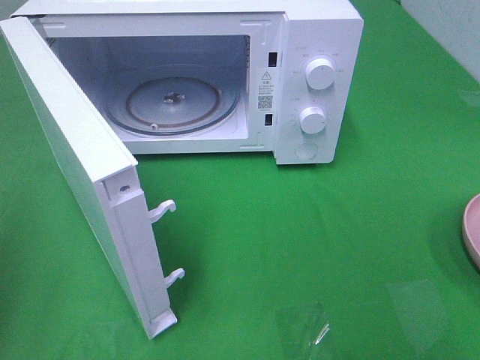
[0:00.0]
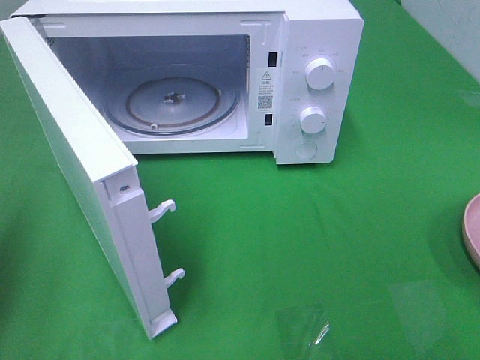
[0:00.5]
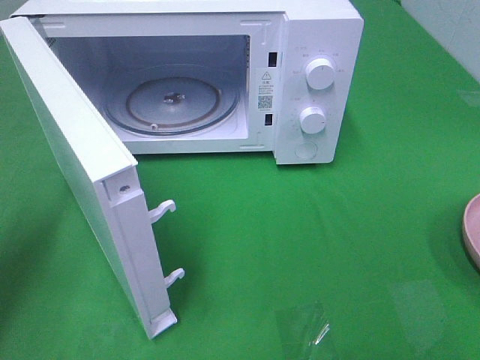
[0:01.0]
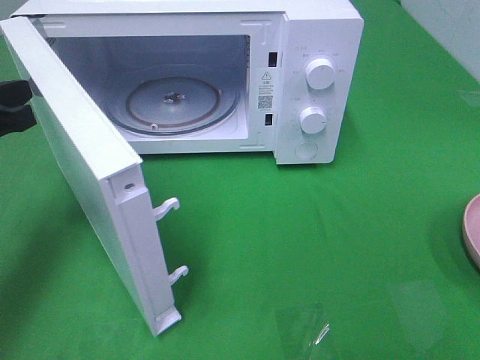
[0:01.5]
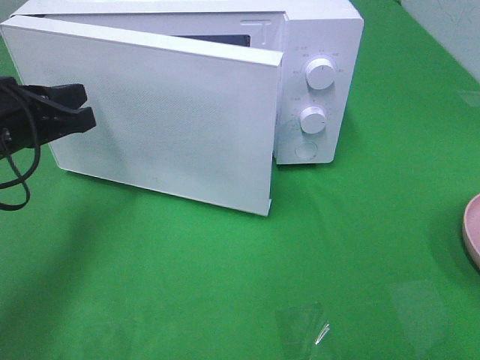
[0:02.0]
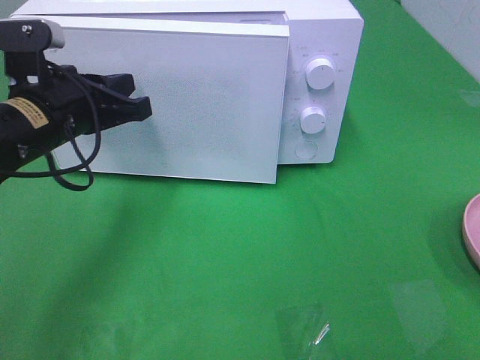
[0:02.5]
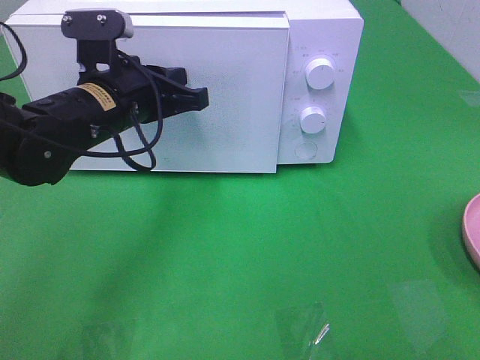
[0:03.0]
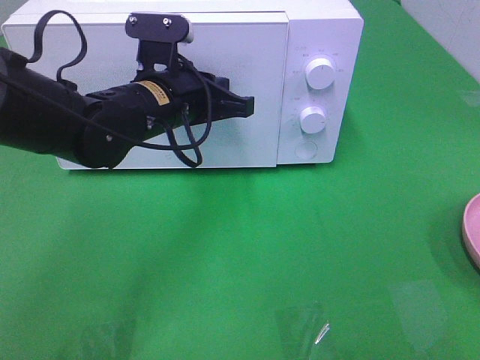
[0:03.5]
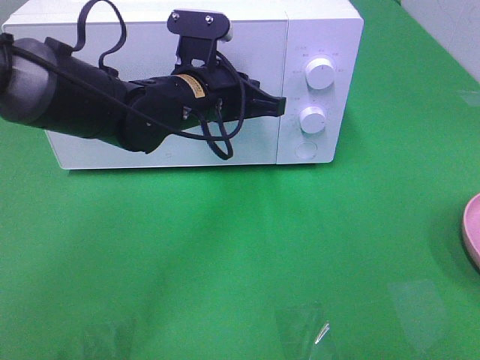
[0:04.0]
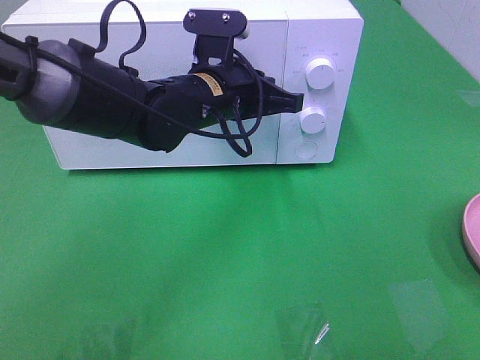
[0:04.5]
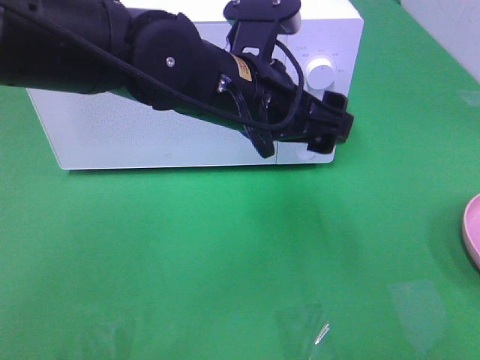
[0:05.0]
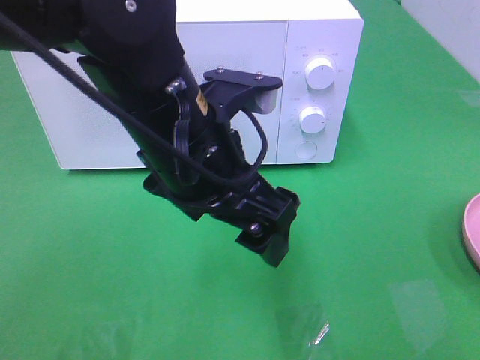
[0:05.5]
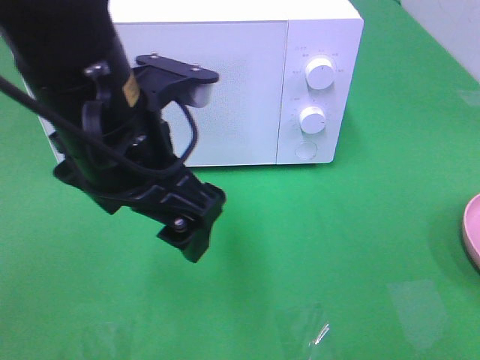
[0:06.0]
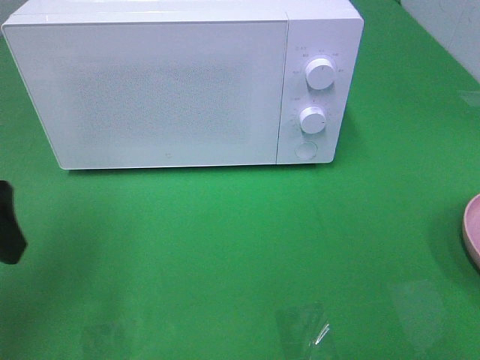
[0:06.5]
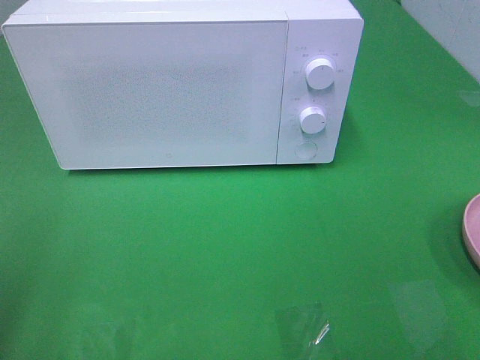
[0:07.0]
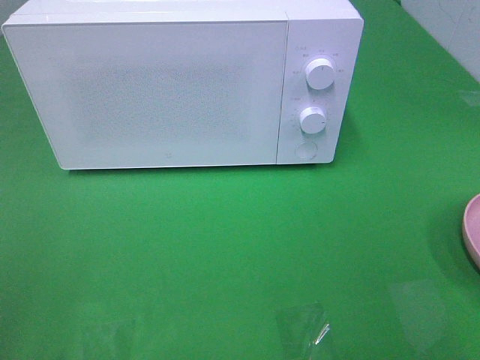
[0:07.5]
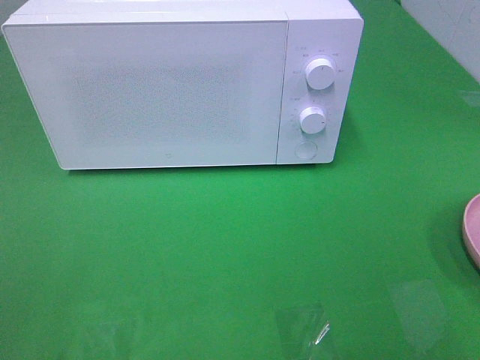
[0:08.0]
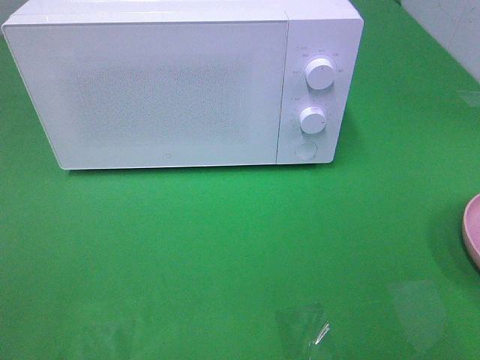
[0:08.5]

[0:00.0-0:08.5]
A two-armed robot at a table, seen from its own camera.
Task of the whole recording: Heat the burger.
Step, 0:00.0 to 0:04.5: Left hand: close the microwave door.
0:00.0 to 0:02.0: The left gripper goes some 20 cm forward, to the right and downward.
0:02.0 to 0:04.0: The left gripper shifts some 20 cm to the right.
0:04.0 to 0:06.5: The left gripper goes some 25 cm to the left and backward, and opens its fingers.
0:06.5 to 0:08.5: The left gripper heads backward, covering some 20 cm.

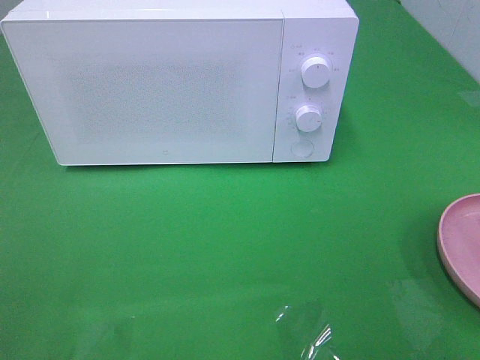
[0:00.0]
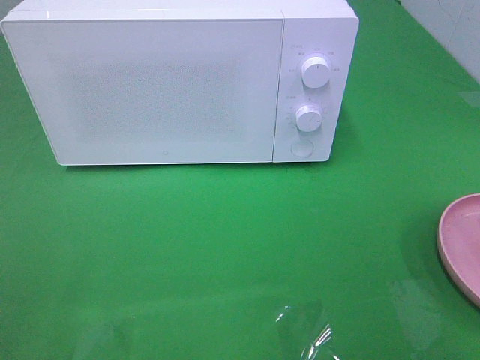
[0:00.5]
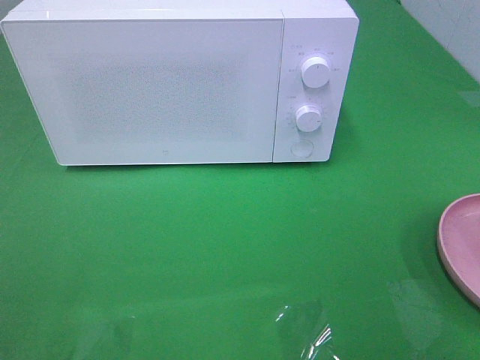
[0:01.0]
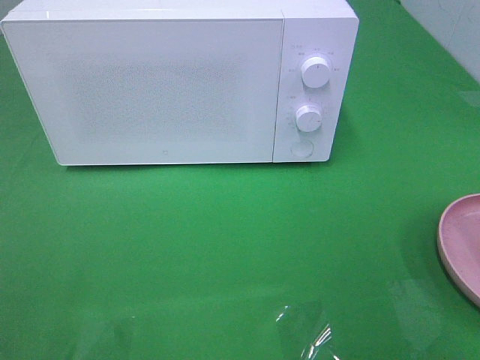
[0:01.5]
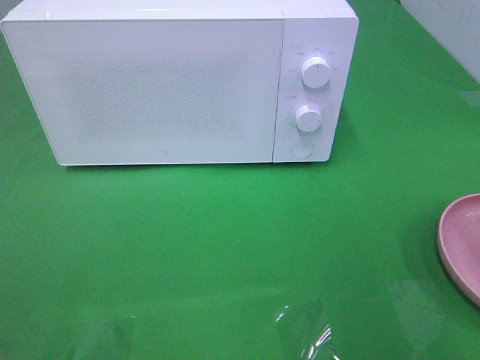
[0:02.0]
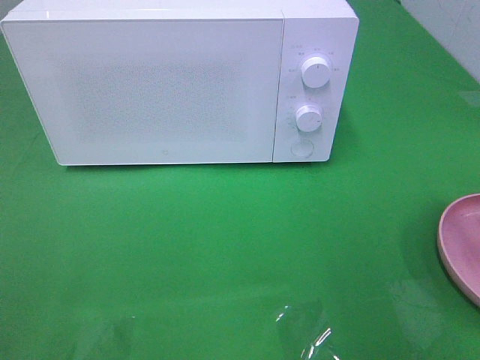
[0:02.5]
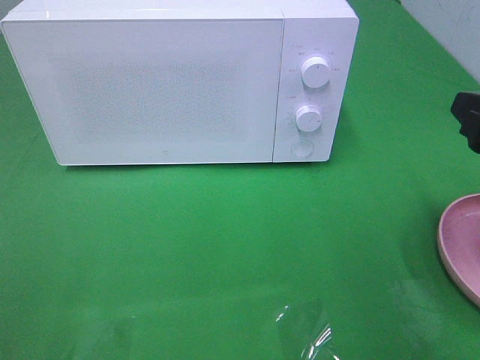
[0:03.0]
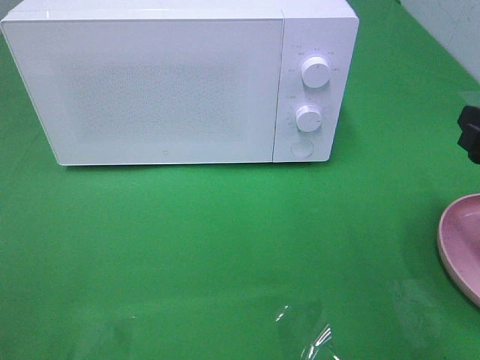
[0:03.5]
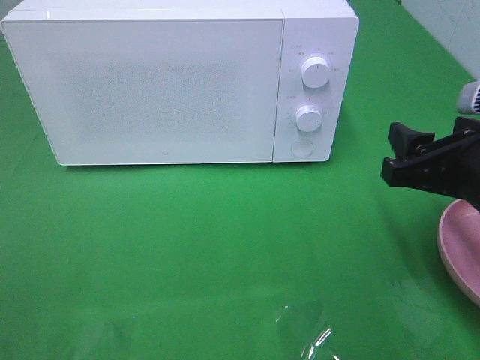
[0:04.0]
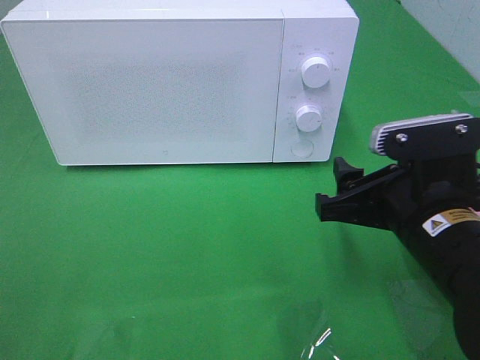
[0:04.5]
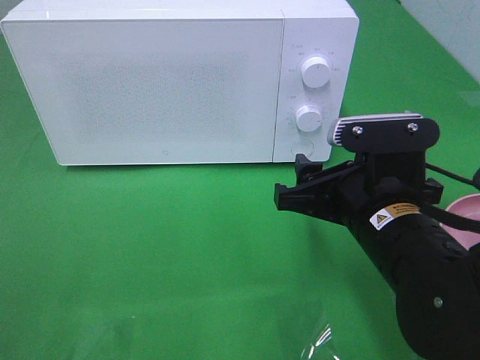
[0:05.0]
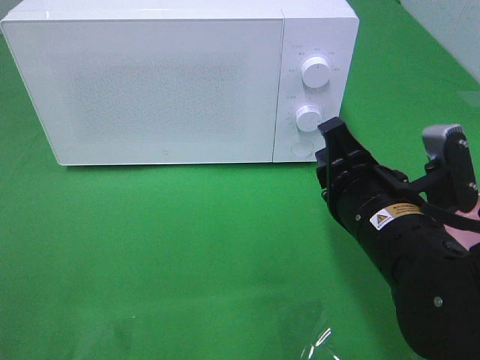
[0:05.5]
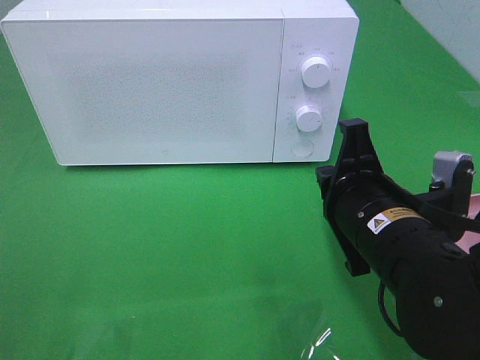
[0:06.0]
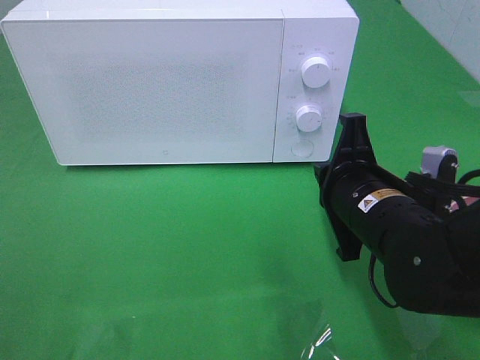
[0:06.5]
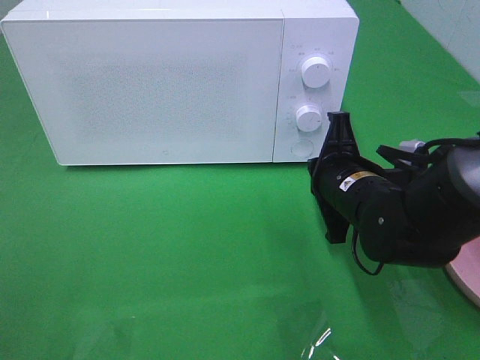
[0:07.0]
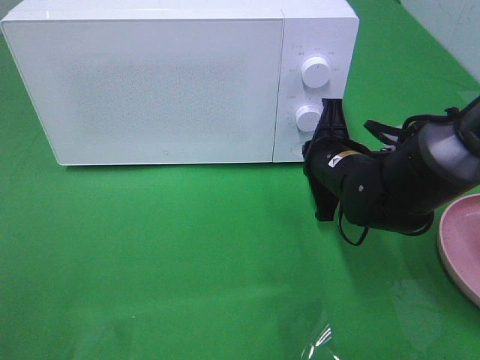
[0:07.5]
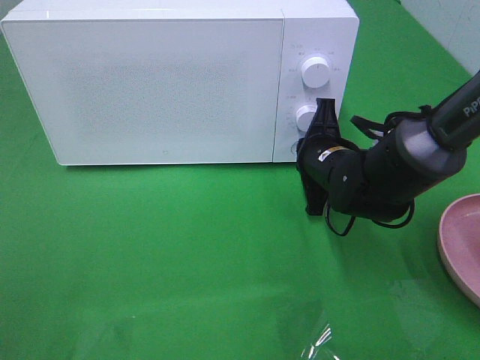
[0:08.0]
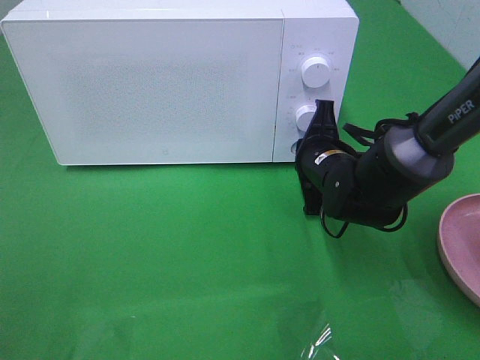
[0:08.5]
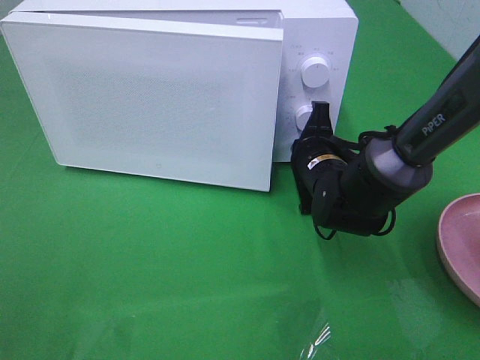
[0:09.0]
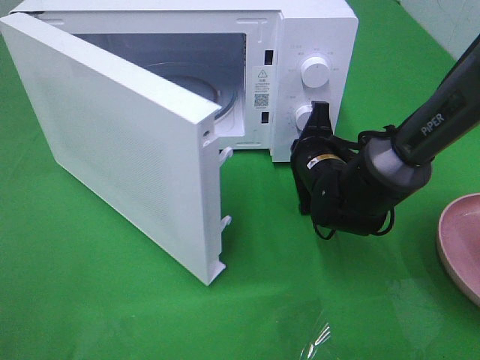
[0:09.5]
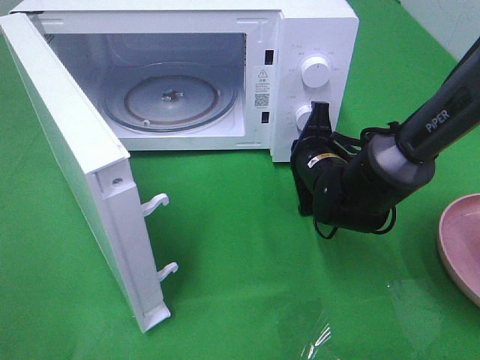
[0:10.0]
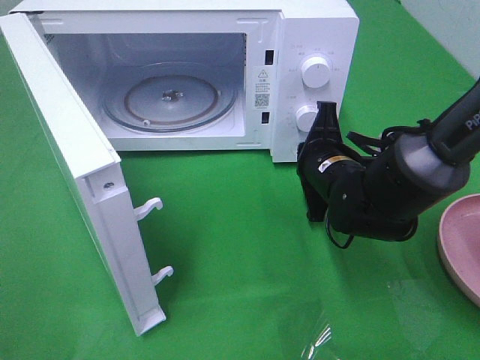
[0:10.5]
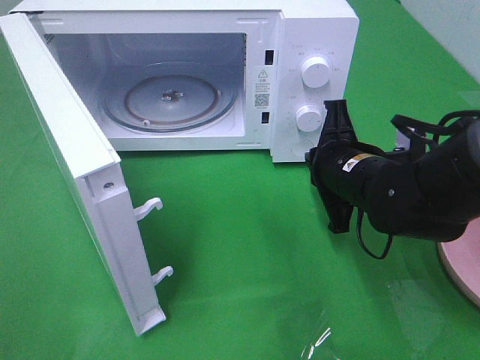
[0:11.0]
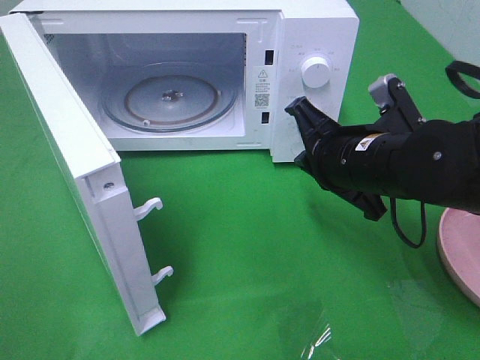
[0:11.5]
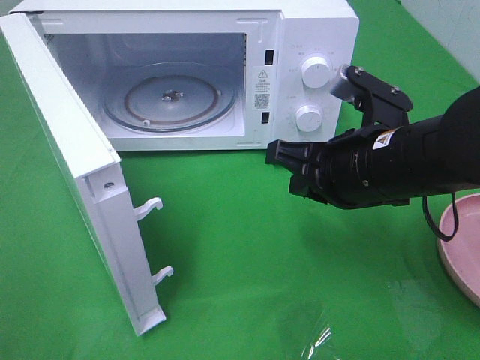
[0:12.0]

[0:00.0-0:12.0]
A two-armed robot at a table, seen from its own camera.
Task of the whole recording: Heat the burger.
Step, 0:00.0 to 0:11.0: Right hand: press the switch.
0:02.0 to 0:04.0: The right gripper is displaced downward, forward and to the left by roughly 15 cm.
0:04.0 to 0:06.0: The right gripper shifts some 10 cm to the left, and closes up.
0:06.0 to 0:08.0: The right gripper moves forward and downward, some 15 cm.
0:10.0 to 0:12.0: The right gripper goes some 15 cm backward and upward.

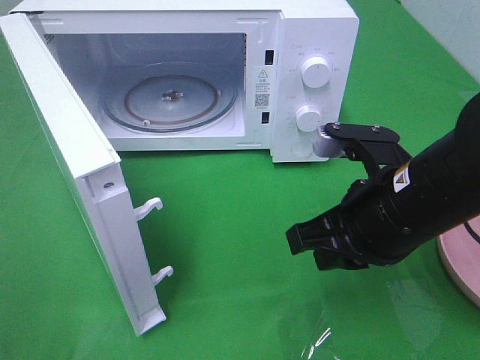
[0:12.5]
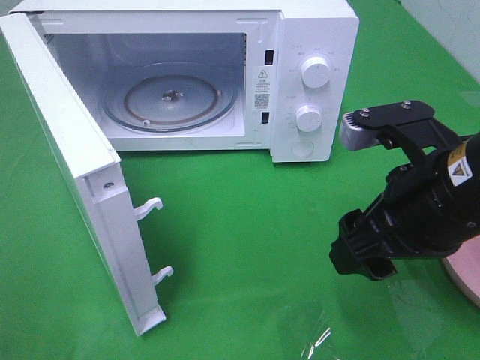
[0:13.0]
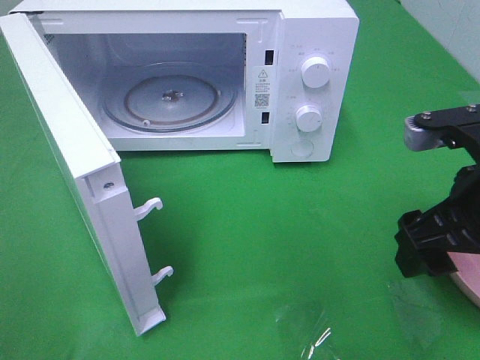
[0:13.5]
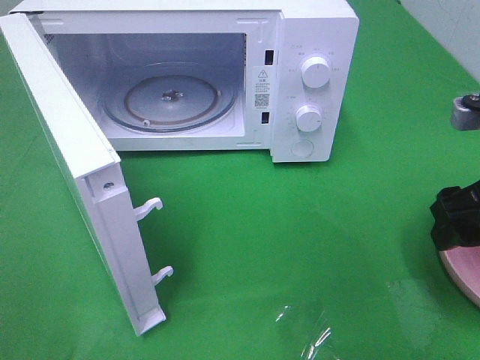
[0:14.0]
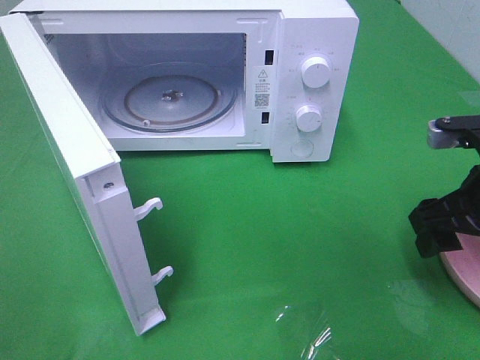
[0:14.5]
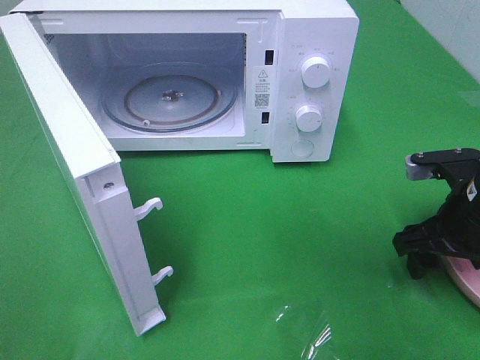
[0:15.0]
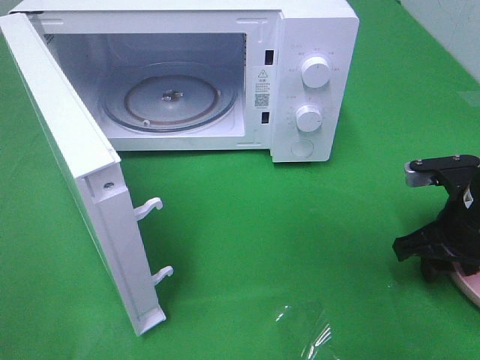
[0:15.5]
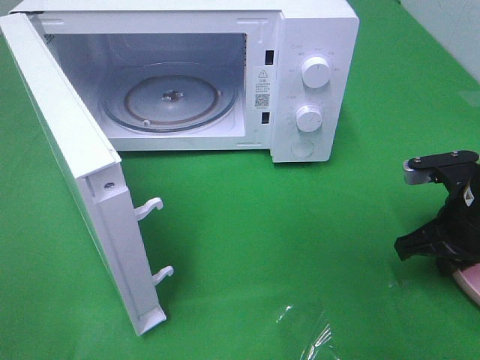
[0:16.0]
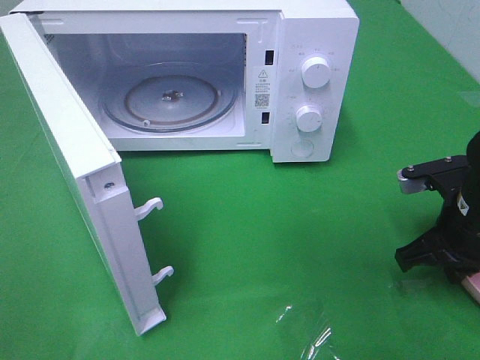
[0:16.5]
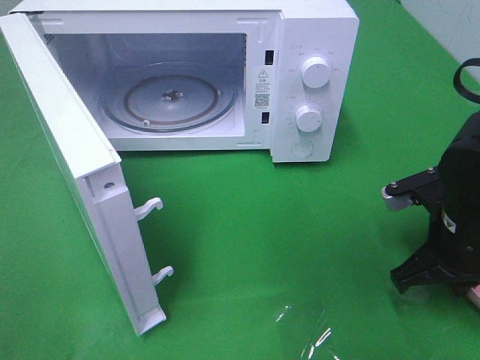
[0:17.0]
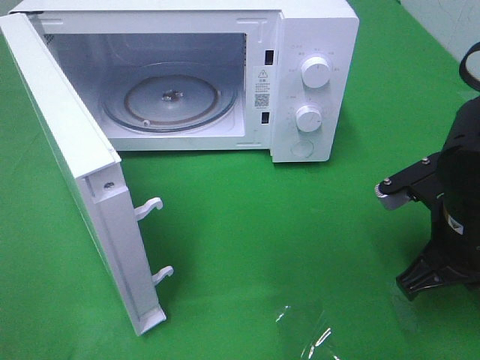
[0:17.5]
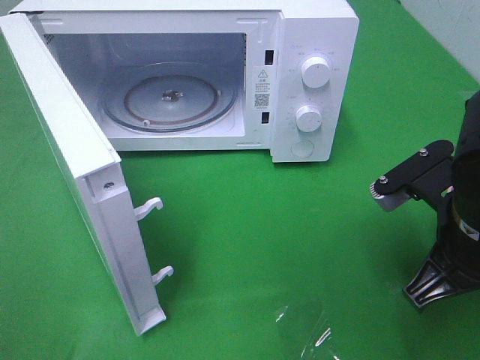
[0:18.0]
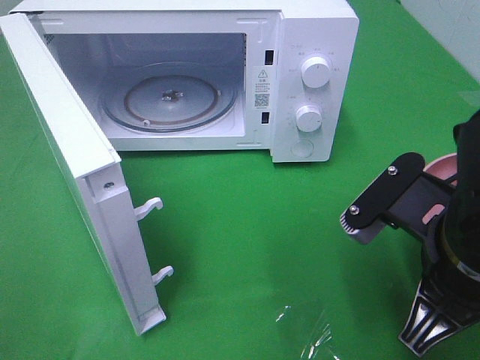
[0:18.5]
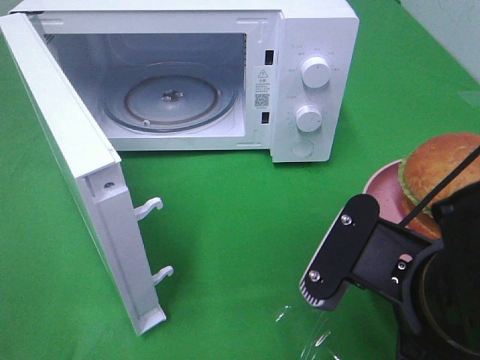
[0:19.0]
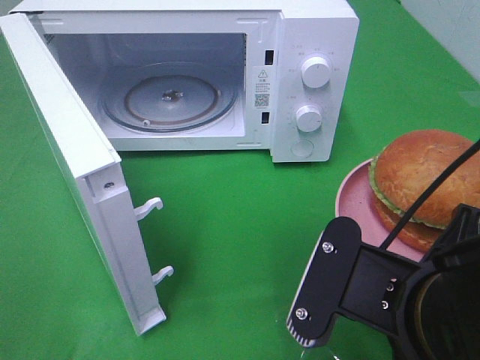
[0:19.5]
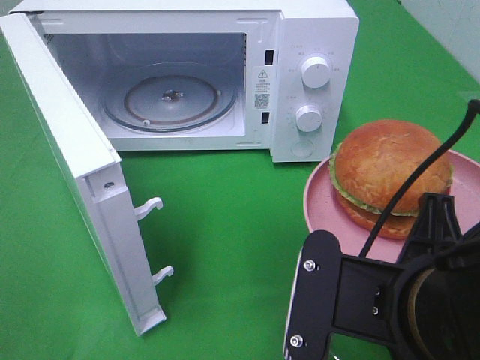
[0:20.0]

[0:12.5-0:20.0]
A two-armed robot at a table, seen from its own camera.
Task of the whole recording: Heat the burger.
Step, 0:12.5 to 0:16.0: Right hand: grab the plate with the hamburger.
0:12.5 to 0:14.5: The right gripper goes roughly 10 cm to the right, and opens its fingers.
0:14.5 to 0:16.5: The right gripper travels downward by about 5 cm, and closes.
0:16.5 to 0:18.0: The right gripper travels upward, backward and to the left by roughly 10 cm.
0:18.0 to 0:20.0: The right gripper goes some 10 cm backward and to the left.
